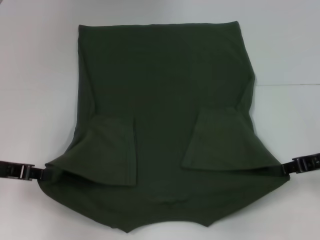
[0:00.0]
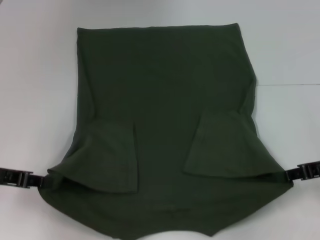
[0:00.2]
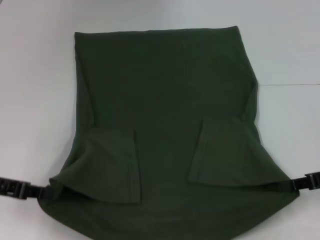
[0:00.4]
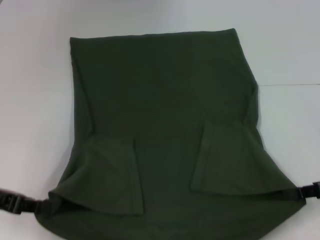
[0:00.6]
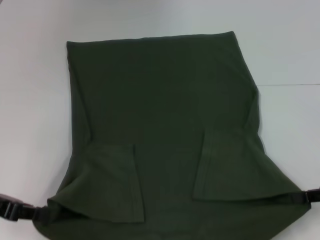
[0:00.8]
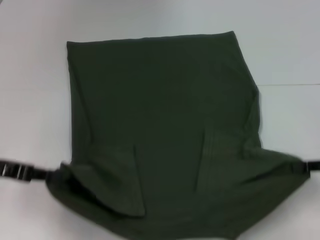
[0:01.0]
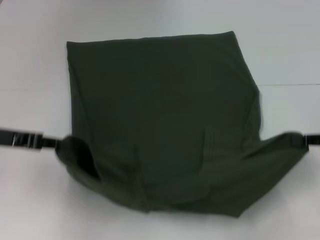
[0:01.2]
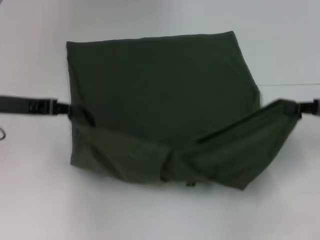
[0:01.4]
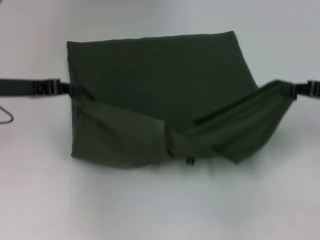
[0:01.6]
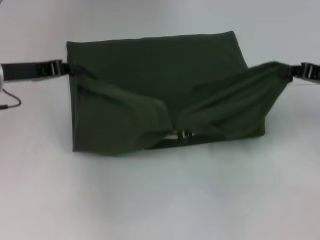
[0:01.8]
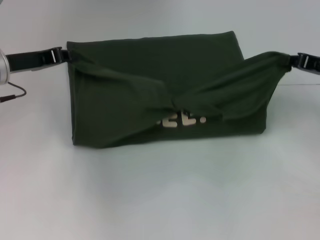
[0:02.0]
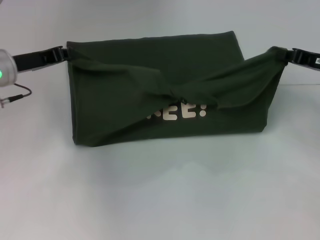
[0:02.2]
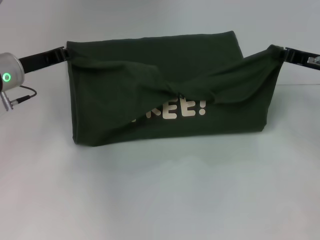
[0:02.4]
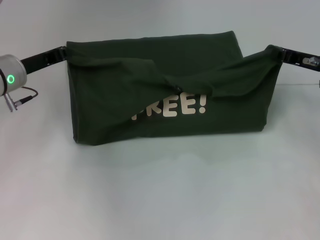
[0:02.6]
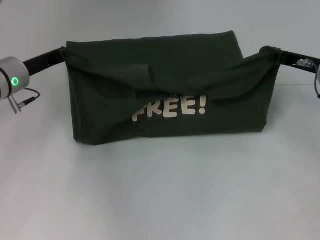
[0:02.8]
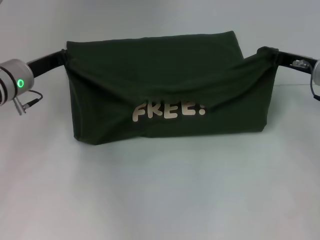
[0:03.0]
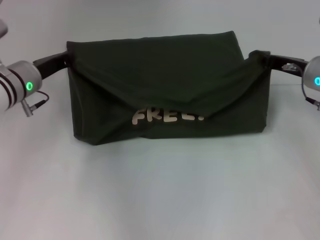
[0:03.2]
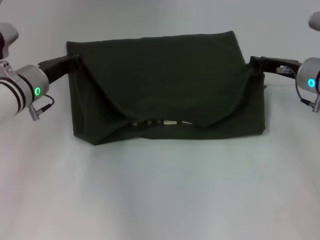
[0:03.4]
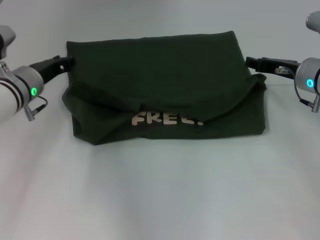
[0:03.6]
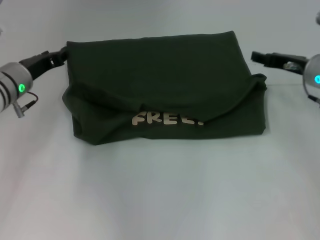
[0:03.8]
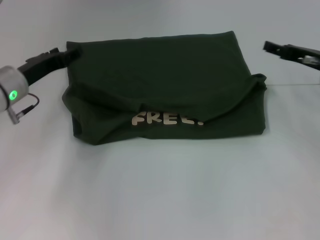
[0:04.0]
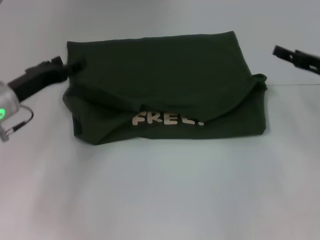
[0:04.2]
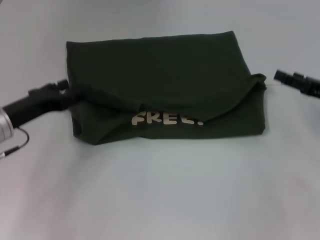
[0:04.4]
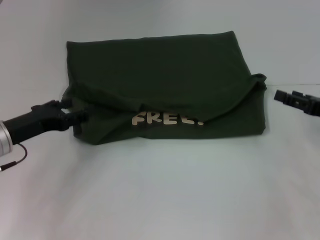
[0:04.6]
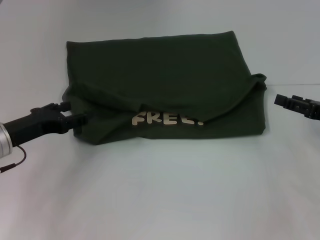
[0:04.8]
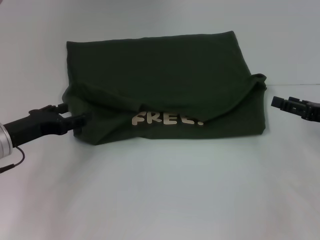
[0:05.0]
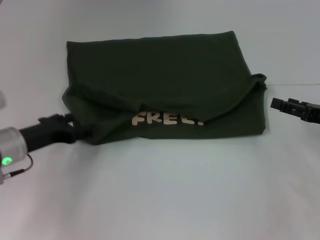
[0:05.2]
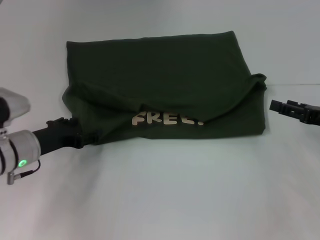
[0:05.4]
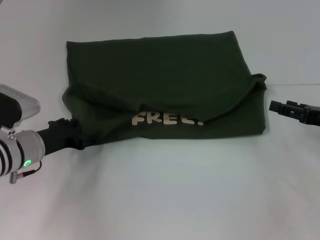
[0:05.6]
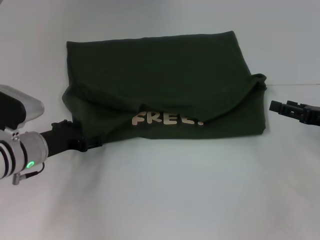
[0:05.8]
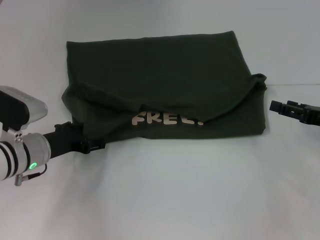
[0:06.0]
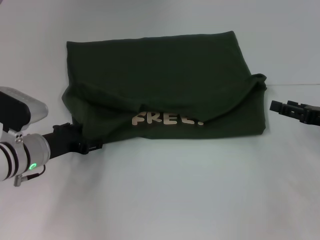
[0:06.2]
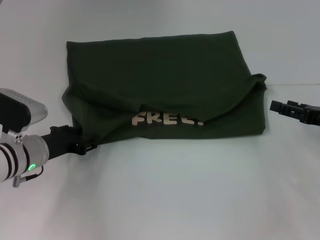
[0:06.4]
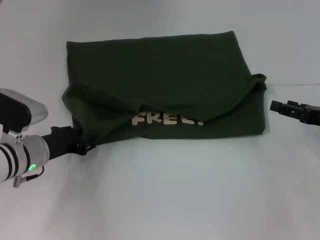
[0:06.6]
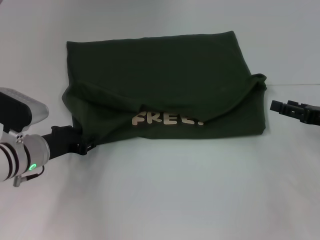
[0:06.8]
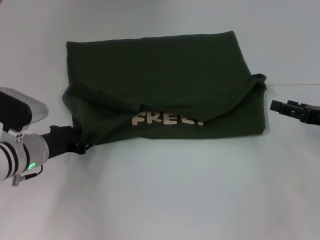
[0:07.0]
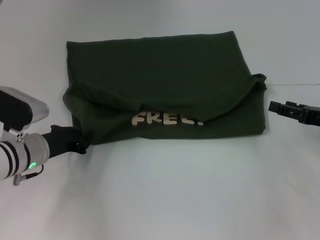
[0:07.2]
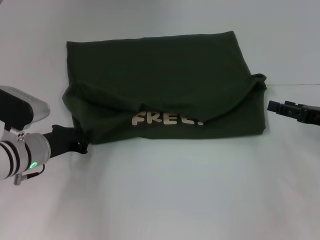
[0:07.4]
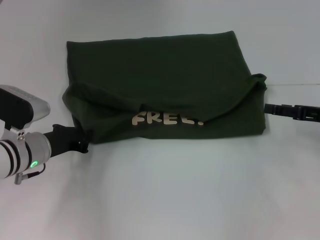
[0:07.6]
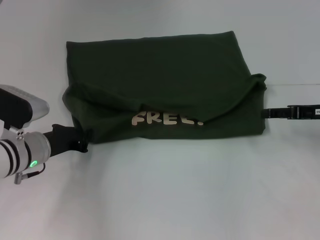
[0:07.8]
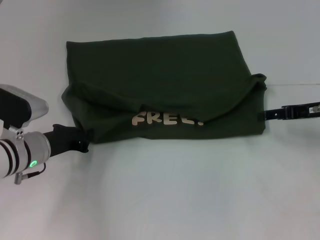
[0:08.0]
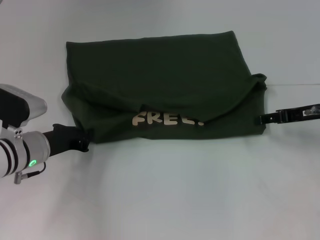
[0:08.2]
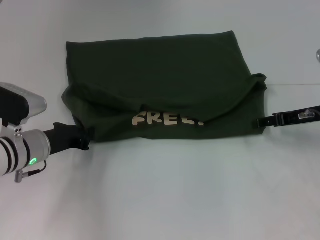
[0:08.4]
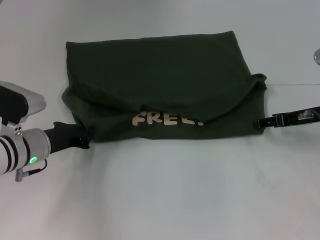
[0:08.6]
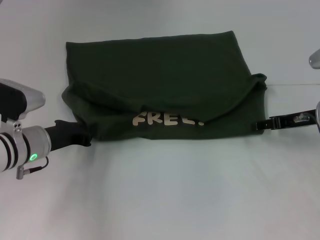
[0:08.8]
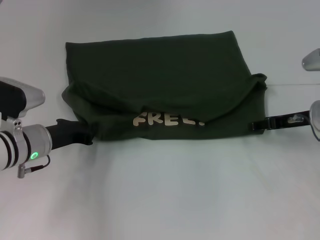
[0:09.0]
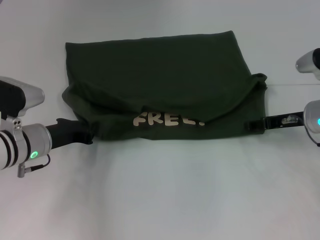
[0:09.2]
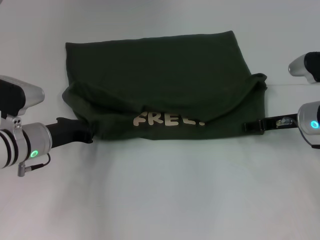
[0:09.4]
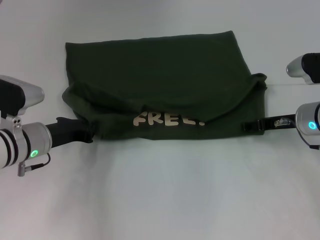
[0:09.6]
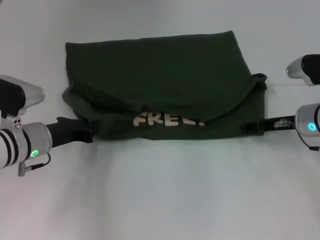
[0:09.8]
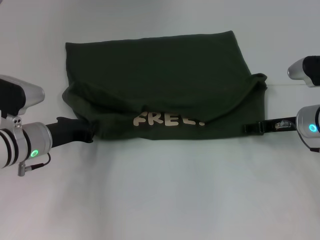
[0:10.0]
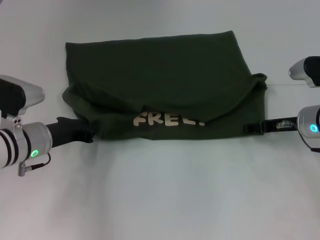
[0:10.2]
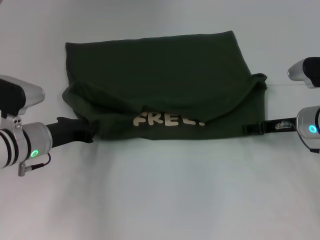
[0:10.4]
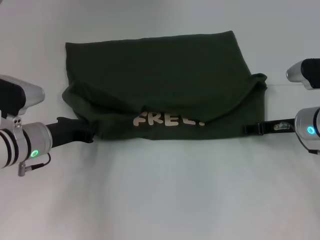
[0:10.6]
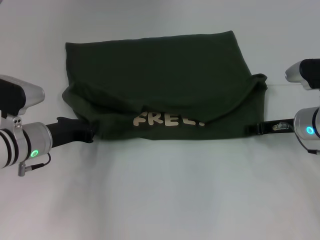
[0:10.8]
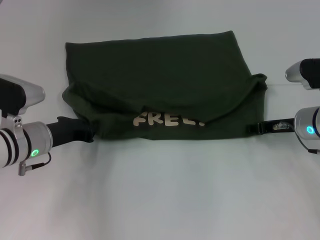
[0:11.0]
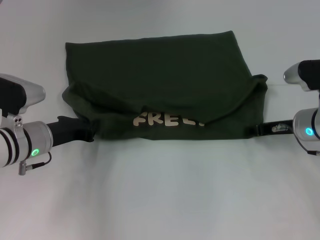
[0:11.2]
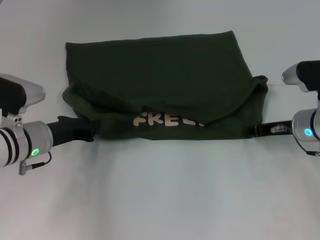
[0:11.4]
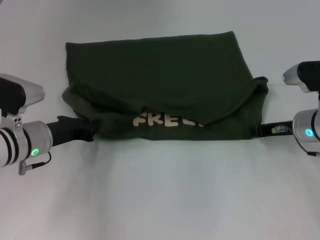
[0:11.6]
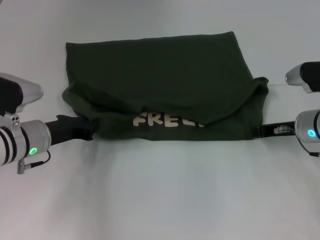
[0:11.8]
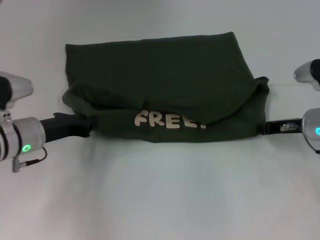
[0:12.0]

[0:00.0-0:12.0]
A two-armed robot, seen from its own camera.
Step, 0.0 to 3.4 s: Fold the clothes with your left hand.
Step, 0.0 to 3.4 s: Fold the clothes with your right hand.
0.0 to 1.6 s: The left gripper heads forward and upward, covering approximately 10 cm. The right gripper ends up roughly 5 cm from where it was.
1.6 to 3.0 s: The right gripper goes about 10 cm forward and to the left. The left gripper heads forward and downward, covering some 5 cm.
3.0 to 4.4 s: The left gripper is displaced backward by some 10 cm, and opens. The right gripper is displaced backward and to the right by roughly 10 cm, and opens its fingers.
4.4 to 6.0 s: The left gripper changes place by roughly 5 cm.
6.0 to 7.6 s: The left gripper closes its fingers.
7.6 to 9.0 s: The right gripper heads to the left, covering approximately 5 cm.
9.0 to 10.4 s: The grippers move only a little.
10.4 to 12.0 s: The right gripper closes up.

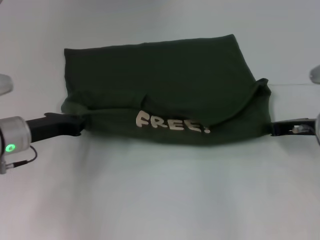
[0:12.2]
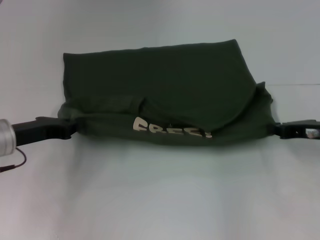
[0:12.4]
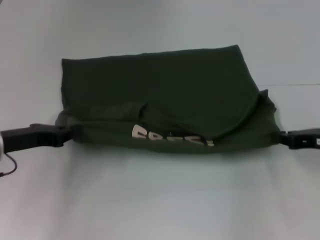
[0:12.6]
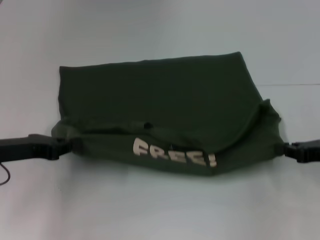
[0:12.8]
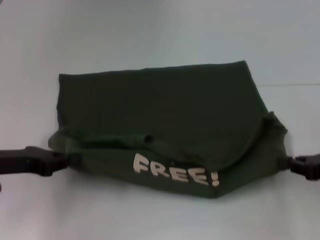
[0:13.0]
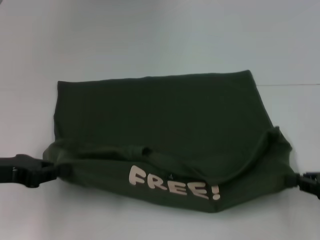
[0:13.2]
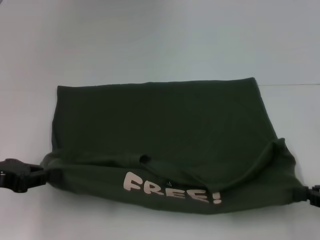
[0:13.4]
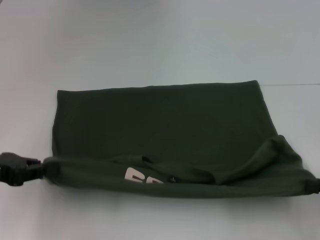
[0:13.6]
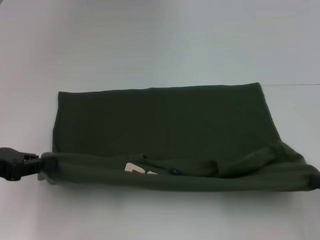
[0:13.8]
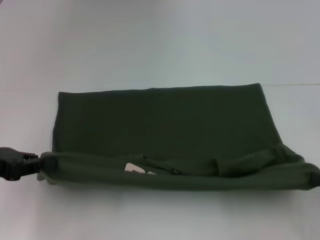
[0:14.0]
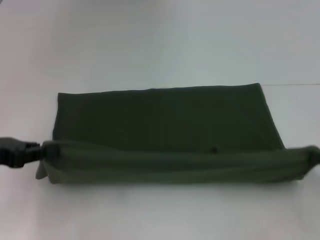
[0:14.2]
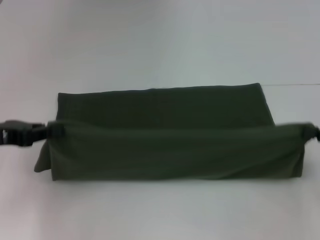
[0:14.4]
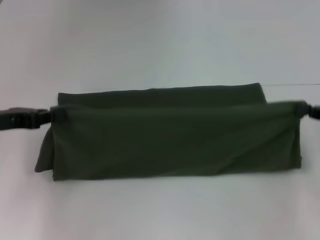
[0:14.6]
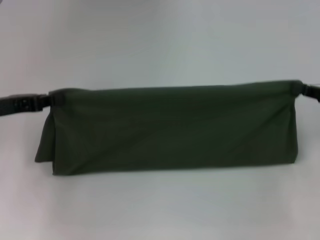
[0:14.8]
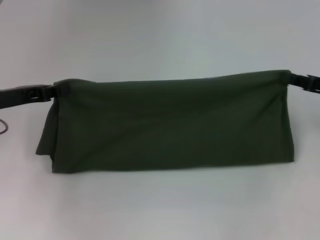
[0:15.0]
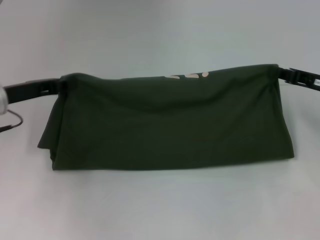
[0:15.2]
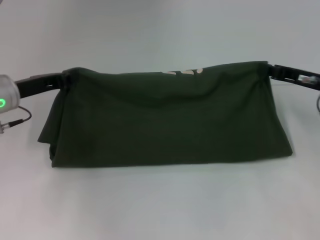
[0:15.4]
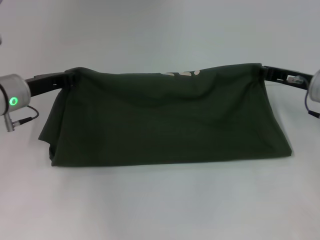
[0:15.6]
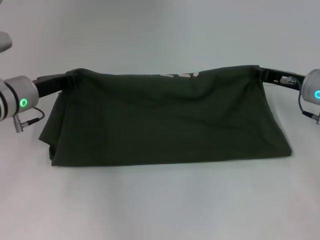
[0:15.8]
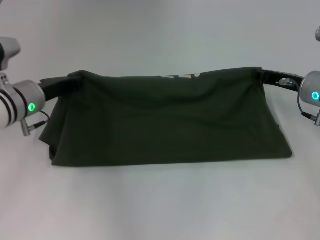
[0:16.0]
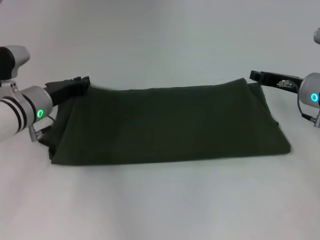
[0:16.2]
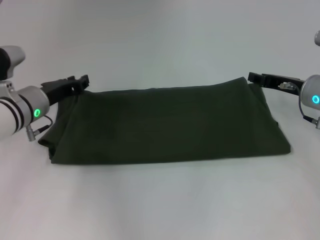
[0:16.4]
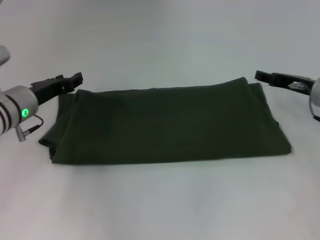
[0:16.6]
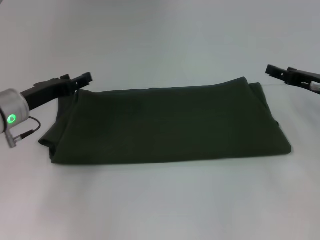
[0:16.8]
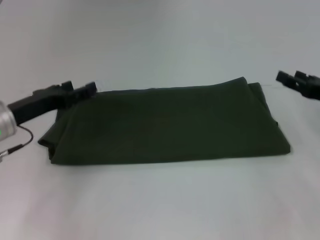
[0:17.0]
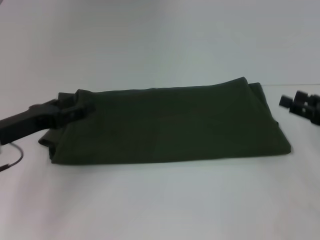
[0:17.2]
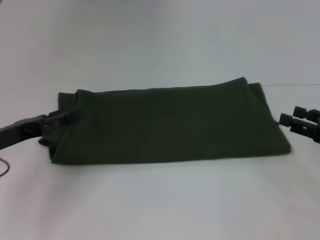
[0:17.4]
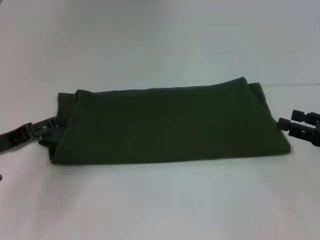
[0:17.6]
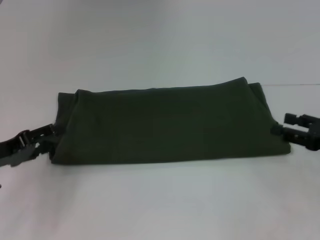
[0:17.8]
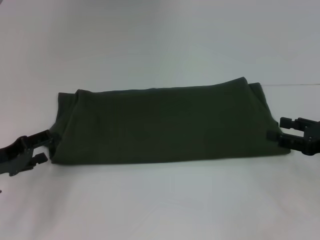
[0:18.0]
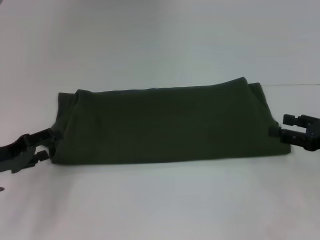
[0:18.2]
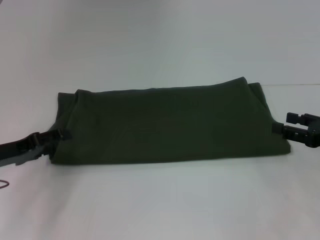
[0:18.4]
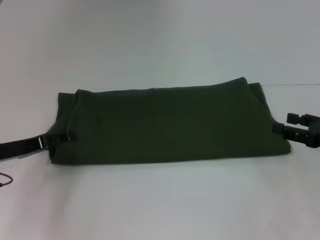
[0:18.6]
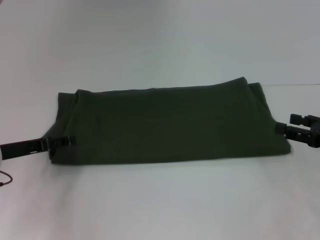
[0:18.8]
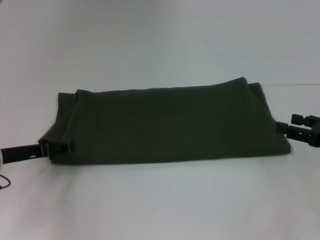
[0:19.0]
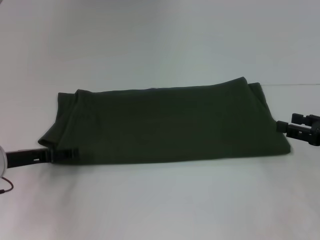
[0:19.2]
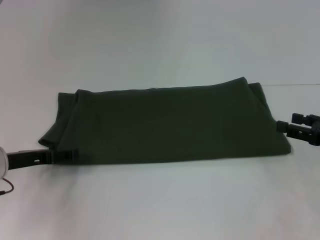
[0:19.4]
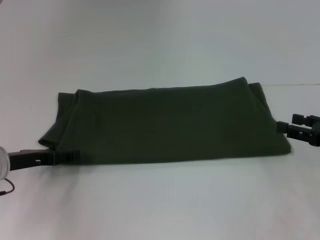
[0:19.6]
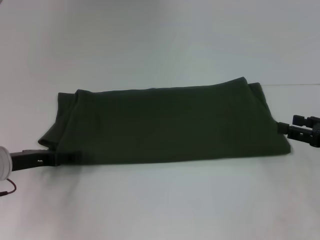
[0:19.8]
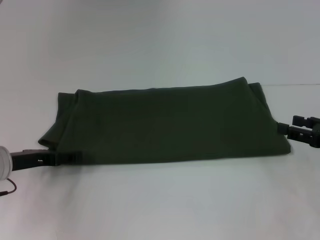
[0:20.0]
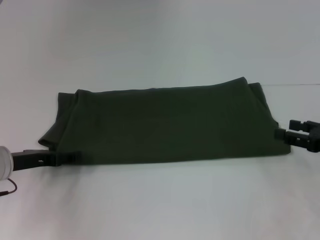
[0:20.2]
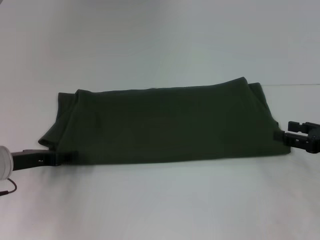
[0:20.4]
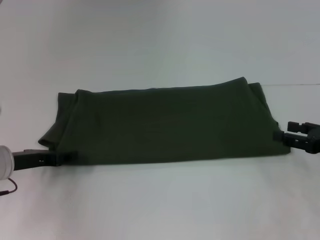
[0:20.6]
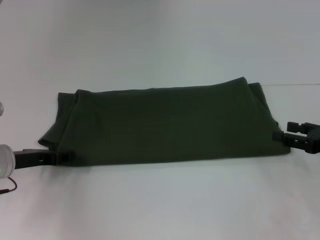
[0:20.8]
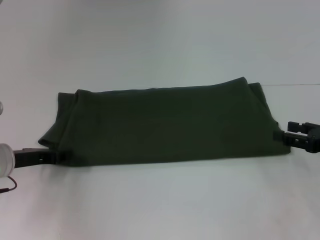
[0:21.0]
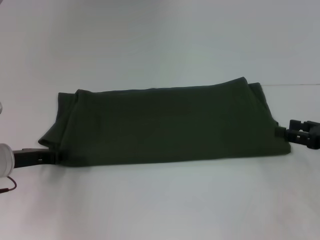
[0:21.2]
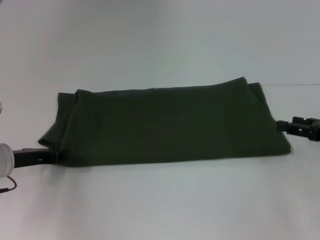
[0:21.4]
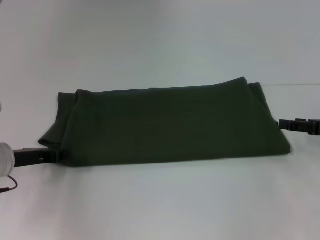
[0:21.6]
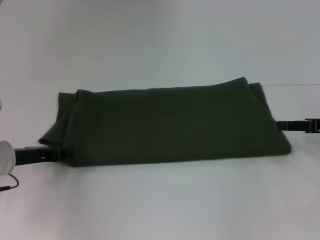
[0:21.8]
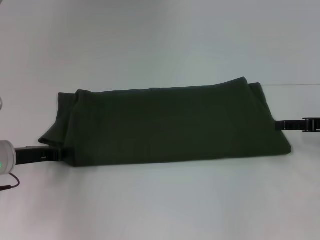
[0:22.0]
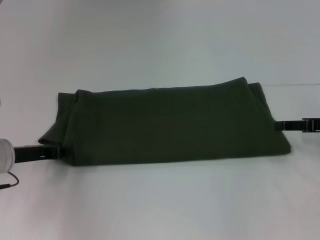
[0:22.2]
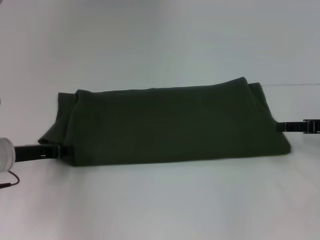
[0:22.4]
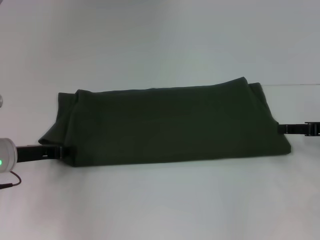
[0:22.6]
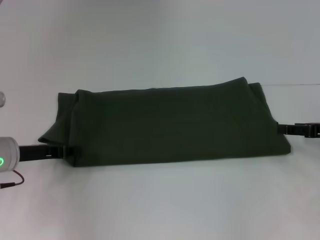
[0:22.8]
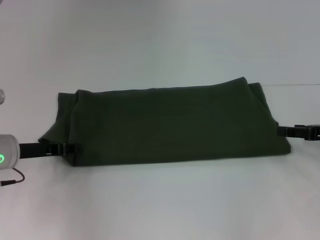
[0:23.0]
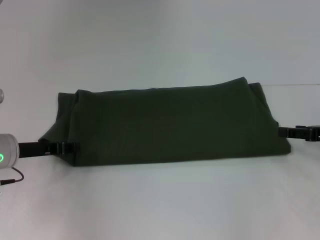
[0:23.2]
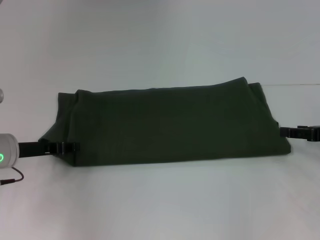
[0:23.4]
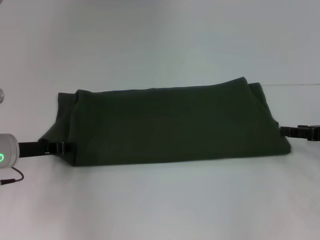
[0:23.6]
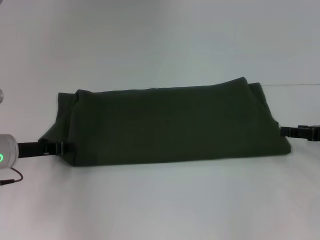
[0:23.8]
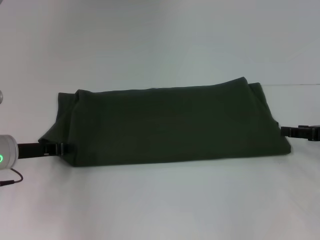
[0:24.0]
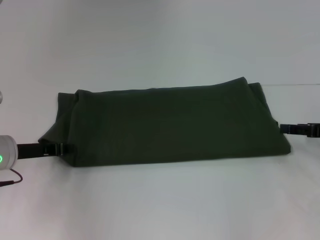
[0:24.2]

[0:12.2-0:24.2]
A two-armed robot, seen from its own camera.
Step, 13.4 to 16.6 s: Fold the clothes with your left hand.
Step, 13.4 to 16.6 s: Fold the clothes with your right hand.
12.2 to 13.8 s: The left gripper travels backward, to the left and upward by about 10 cm; the right gripper travels backward and to the right by roughly 20 cm.
13.8 to 15.2 s: The right gripper moves forward and to the left, roughly 15 cm, while the left gripper shifts approximately 10 cm forward.
15.2 to 16.6 s: The left gripper changes place by roughly 5 cm. Meanwhile the right gripper moves approximately 5 cm, and opens up.
16.6 to 18.2 s: The right gripper goes approximately 10 cm backward and to the right. The left gripper is displaced backward and to the left by some 15 cm, and opens.
18.2 to 19.8 s: The left gripper moves roughly 5 cm.
19.8 to 21.2 s: The left gripper closes.
21.2 to 24.2 s: There are only small adjustments of the grippers.
